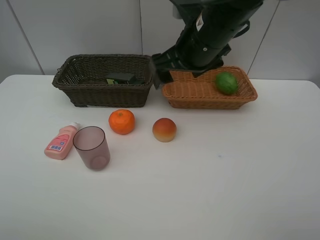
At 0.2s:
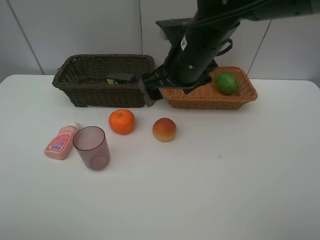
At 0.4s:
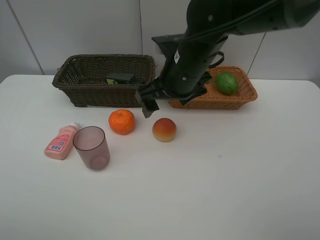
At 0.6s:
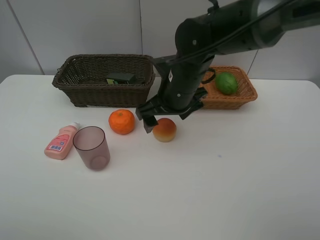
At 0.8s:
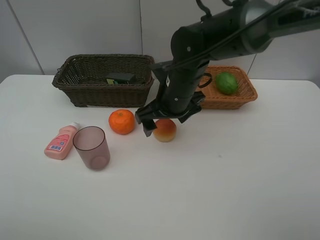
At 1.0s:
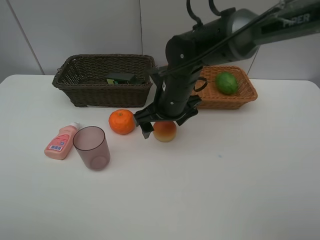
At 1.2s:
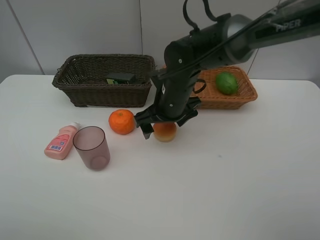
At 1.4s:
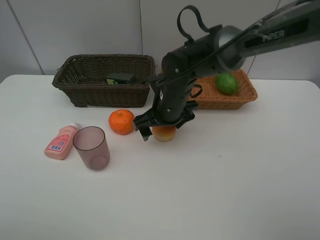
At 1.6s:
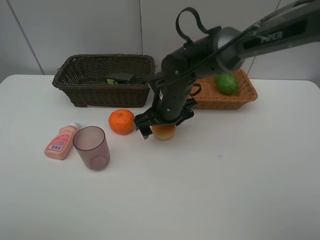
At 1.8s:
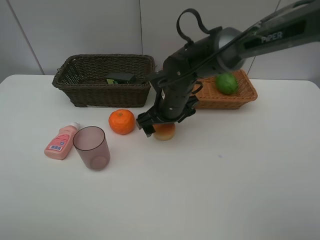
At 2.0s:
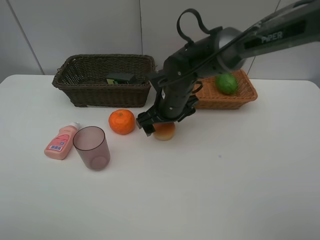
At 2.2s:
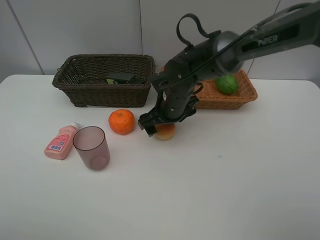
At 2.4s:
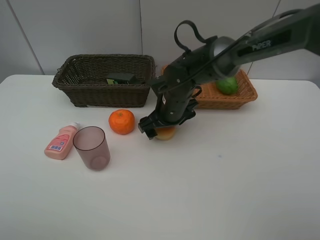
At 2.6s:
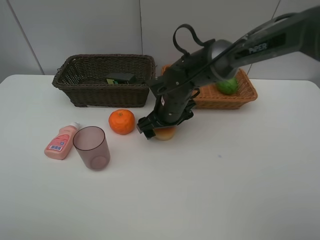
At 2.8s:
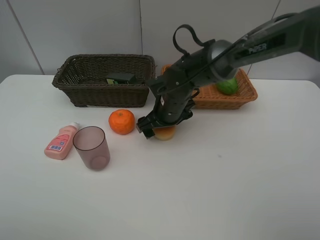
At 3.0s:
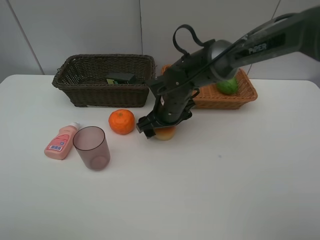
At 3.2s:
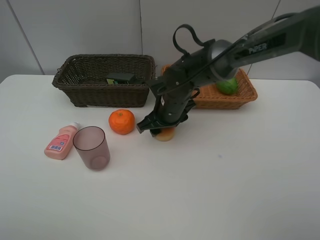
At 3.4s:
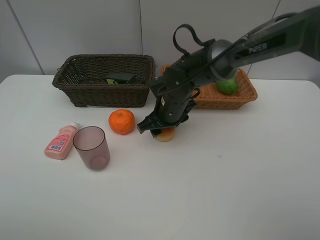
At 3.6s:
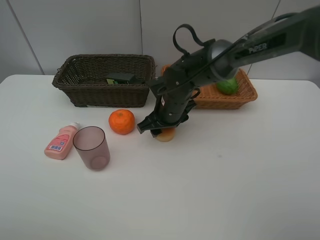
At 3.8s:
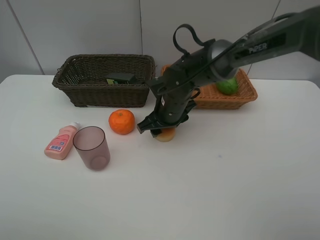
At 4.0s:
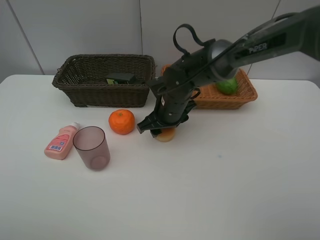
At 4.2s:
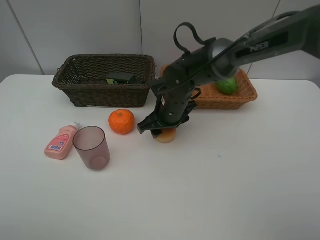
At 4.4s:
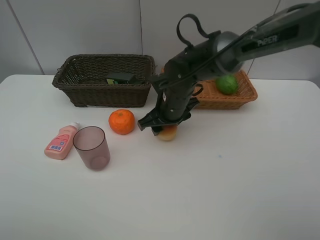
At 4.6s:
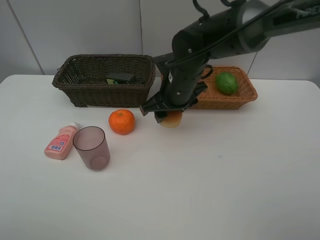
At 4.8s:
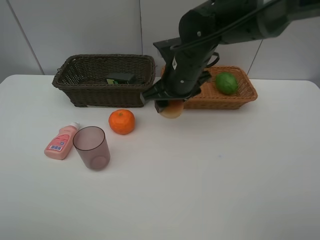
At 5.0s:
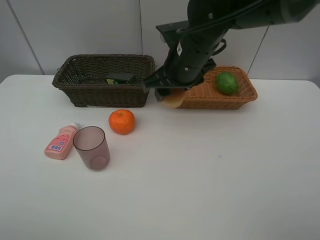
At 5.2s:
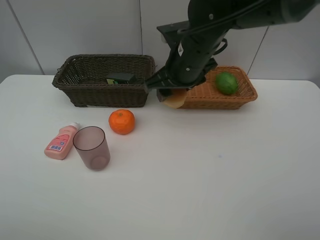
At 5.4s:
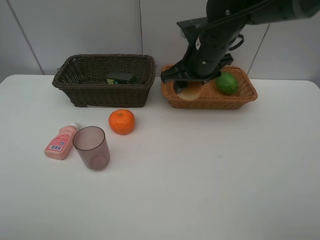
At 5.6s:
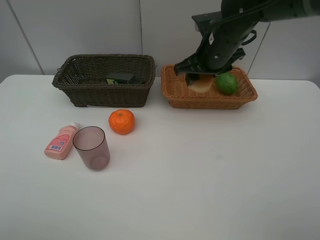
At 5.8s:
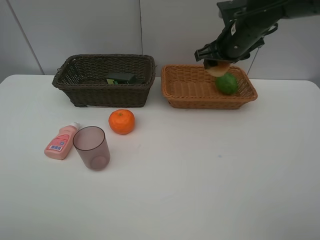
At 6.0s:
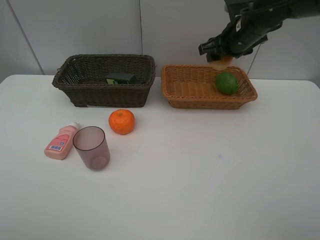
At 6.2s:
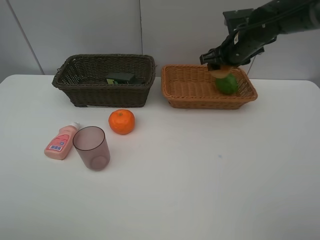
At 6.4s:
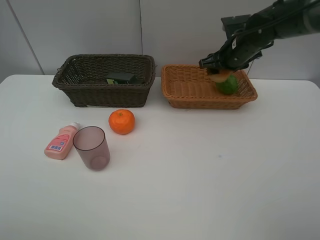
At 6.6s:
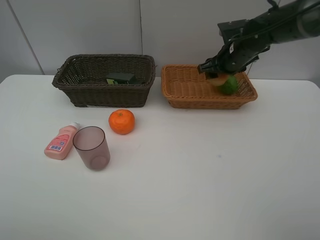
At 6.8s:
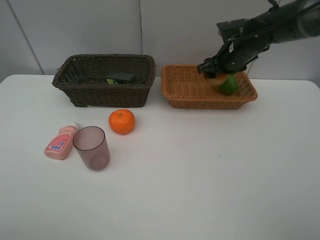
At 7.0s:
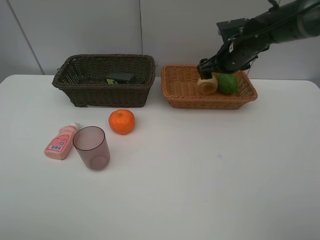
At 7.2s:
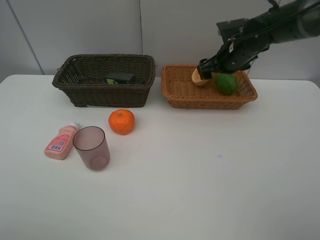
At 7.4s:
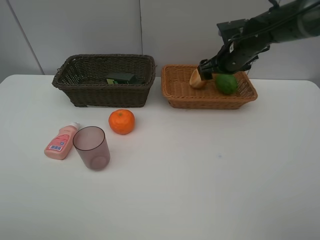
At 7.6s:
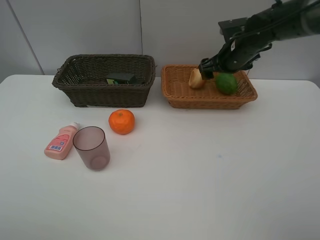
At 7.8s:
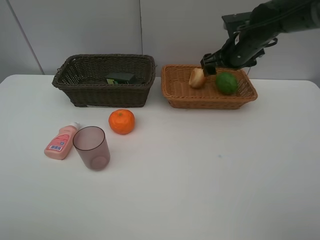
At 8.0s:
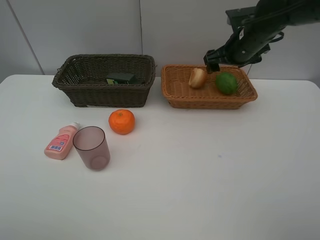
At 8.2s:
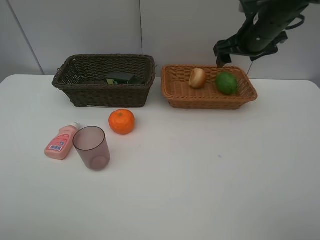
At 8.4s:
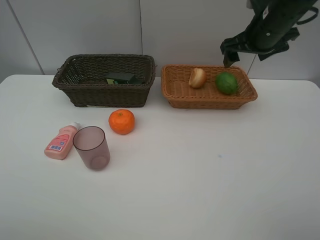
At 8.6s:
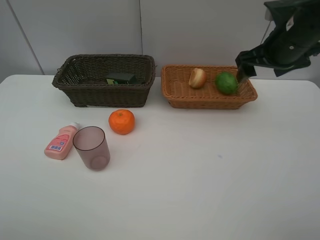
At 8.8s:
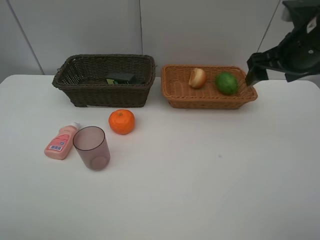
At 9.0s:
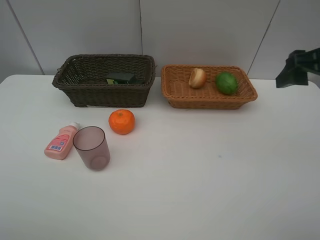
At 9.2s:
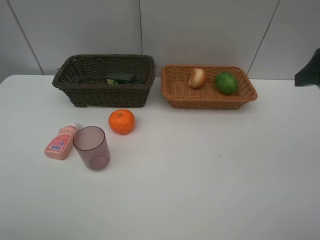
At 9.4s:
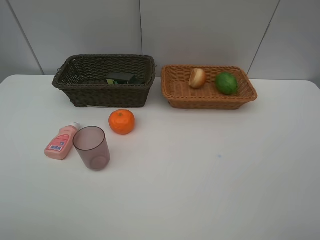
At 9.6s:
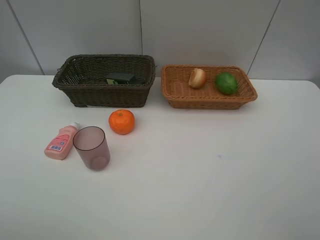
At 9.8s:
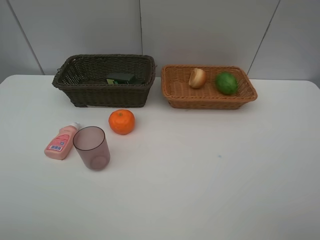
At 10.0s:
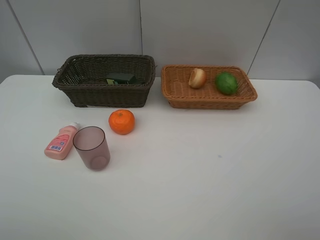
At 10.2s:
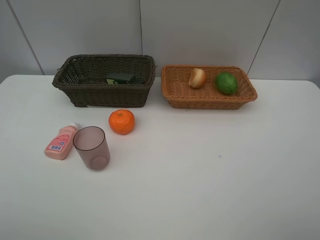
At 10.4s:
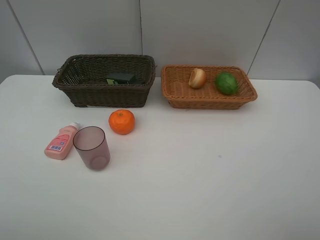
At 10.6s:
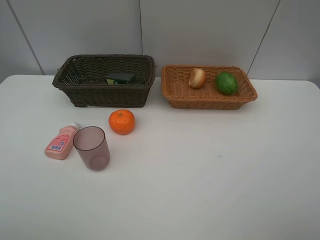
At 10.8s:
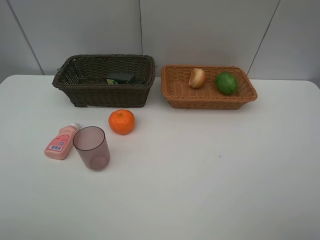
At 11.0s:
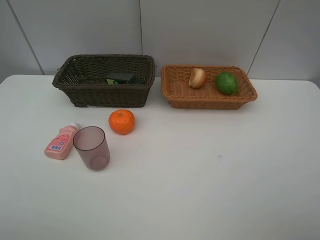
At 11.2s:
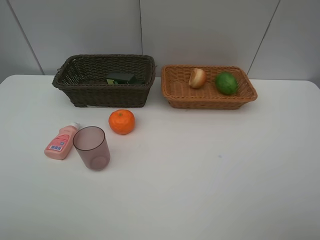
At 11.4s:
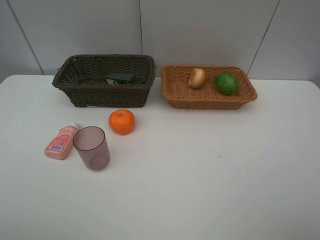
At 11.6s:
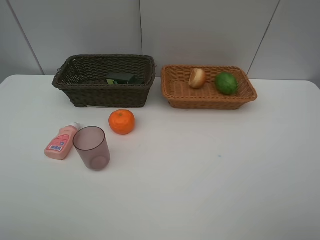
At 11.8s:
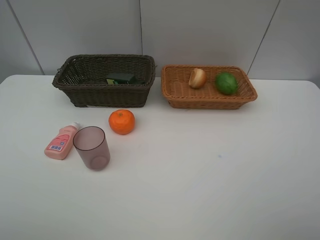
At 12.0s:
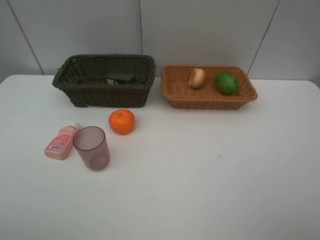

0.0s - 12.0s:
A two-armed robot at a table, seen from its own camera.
Task of the whole recording: place multiple objects separately in different baskets.
0.0s - 1.6s: The right gripper moves downward, approximately 15 cm.
1.6s - 3.0s: The grippers stay close to where they were, moving slightly.
3.0s - 4.4s: The right gripper closes up.
4.4s - 6.0s: The right gripper goes approximately 20 cm to the right, upward and forward.
6.0s - 7.6s: The right gripper opens.
7.6s - 9.0s: The right gripper is displaced backward, upward and to the right by roughly 25 cm.
9.0s - 10.4s: The right gripper is displaced backward by roughly 20 cm.

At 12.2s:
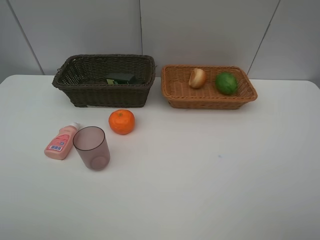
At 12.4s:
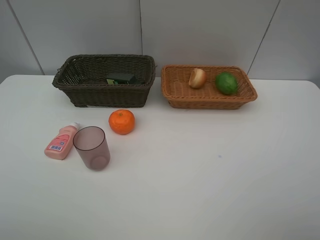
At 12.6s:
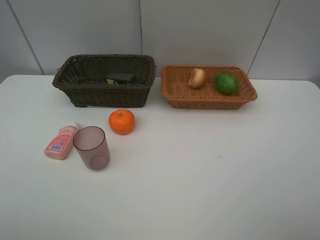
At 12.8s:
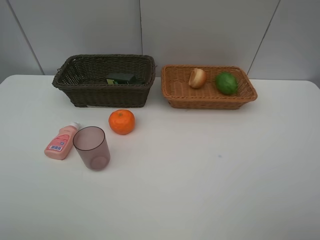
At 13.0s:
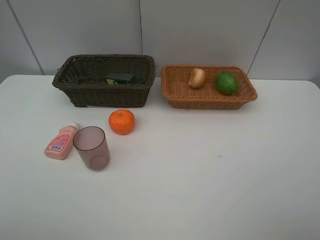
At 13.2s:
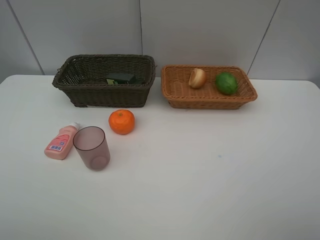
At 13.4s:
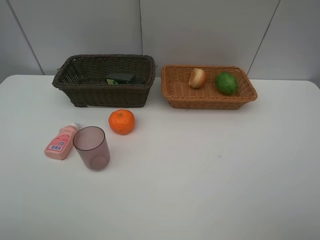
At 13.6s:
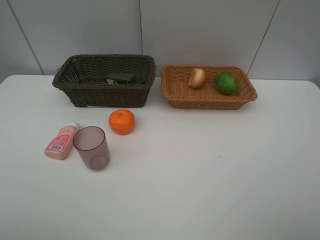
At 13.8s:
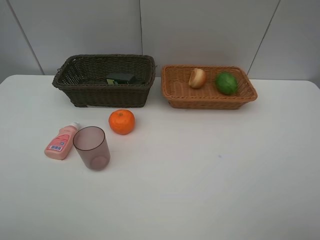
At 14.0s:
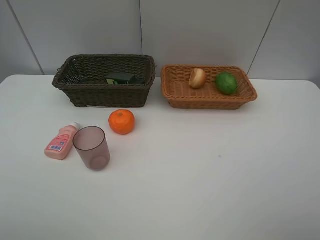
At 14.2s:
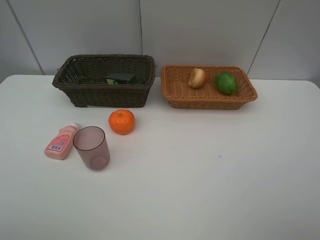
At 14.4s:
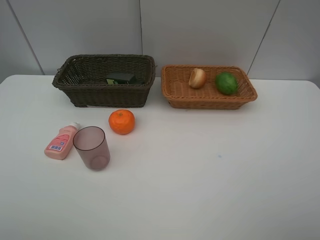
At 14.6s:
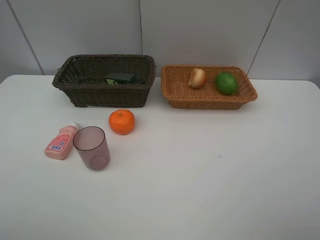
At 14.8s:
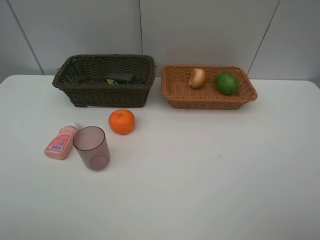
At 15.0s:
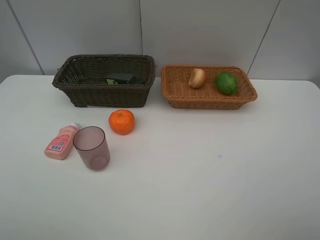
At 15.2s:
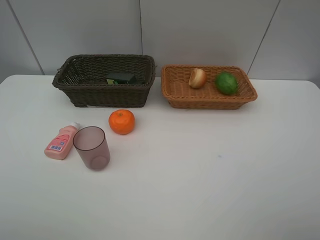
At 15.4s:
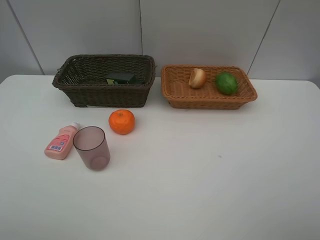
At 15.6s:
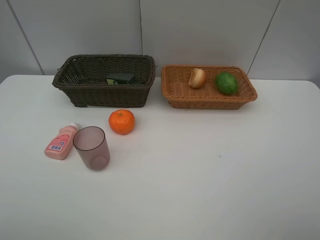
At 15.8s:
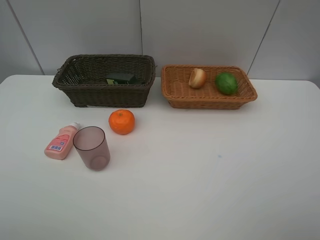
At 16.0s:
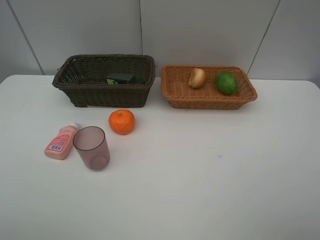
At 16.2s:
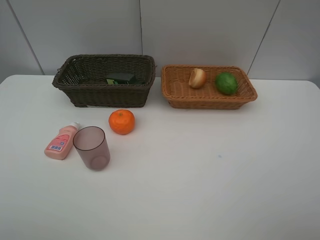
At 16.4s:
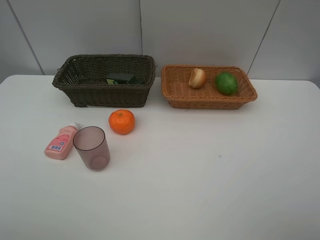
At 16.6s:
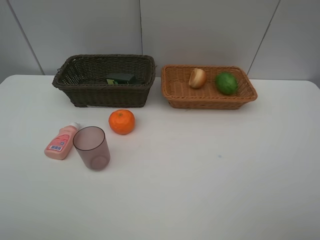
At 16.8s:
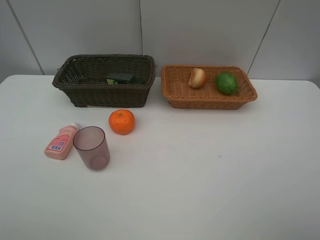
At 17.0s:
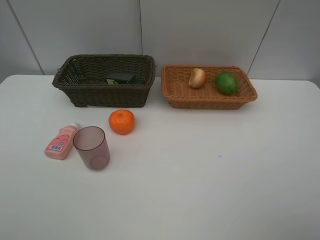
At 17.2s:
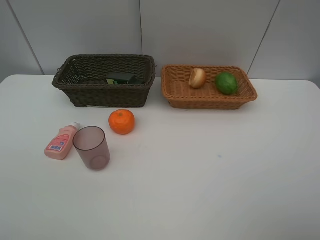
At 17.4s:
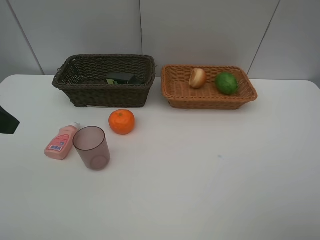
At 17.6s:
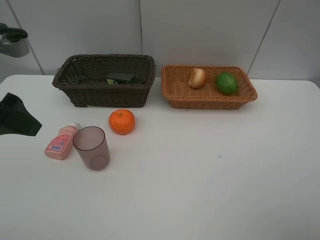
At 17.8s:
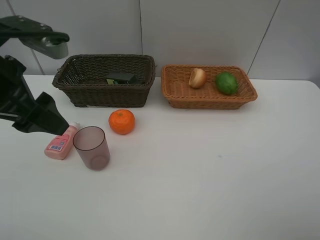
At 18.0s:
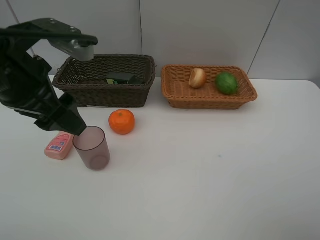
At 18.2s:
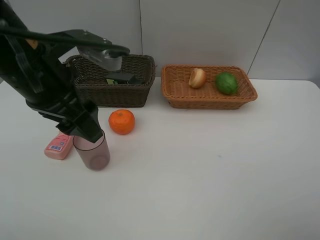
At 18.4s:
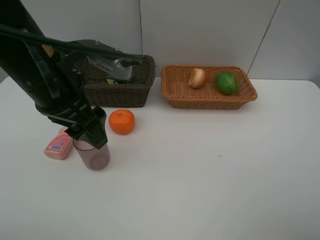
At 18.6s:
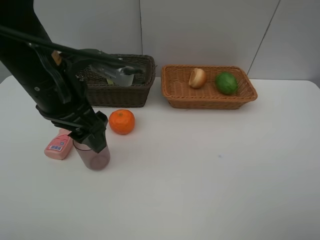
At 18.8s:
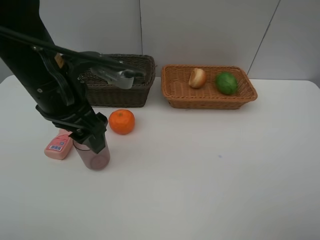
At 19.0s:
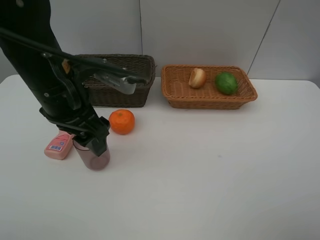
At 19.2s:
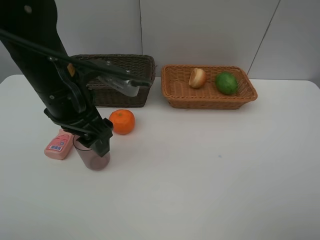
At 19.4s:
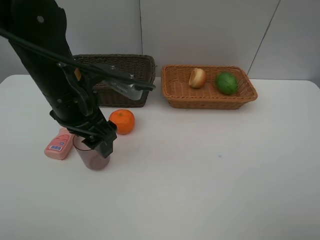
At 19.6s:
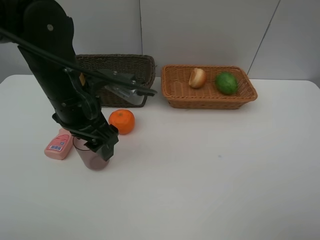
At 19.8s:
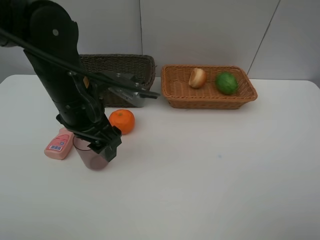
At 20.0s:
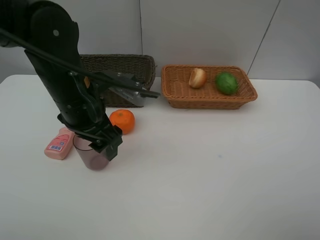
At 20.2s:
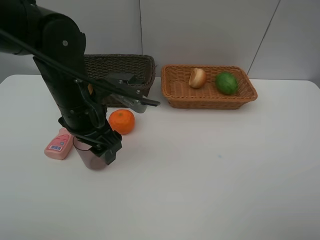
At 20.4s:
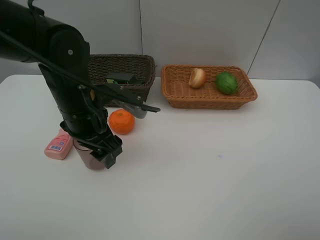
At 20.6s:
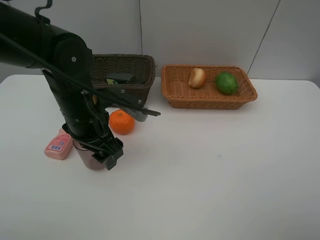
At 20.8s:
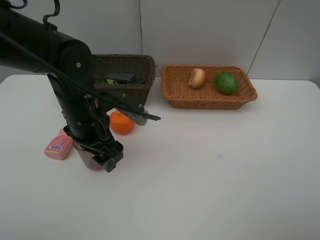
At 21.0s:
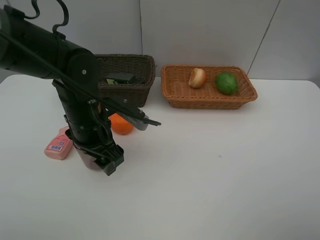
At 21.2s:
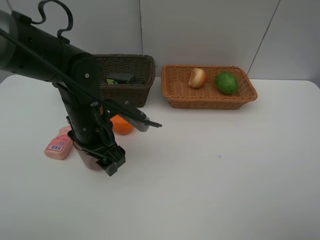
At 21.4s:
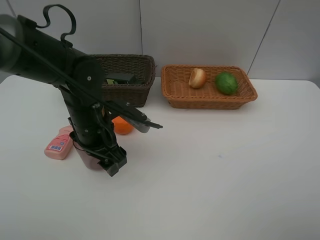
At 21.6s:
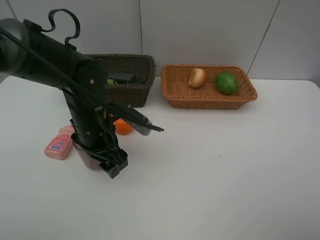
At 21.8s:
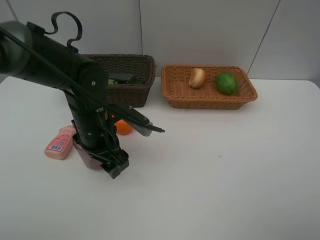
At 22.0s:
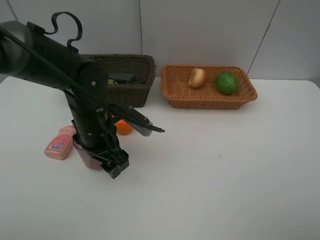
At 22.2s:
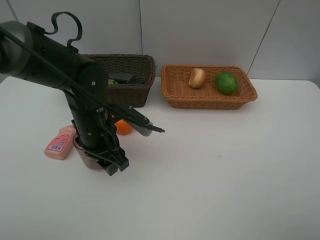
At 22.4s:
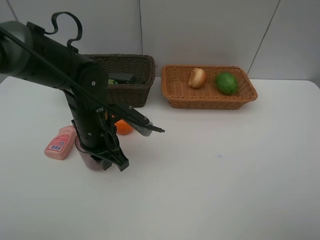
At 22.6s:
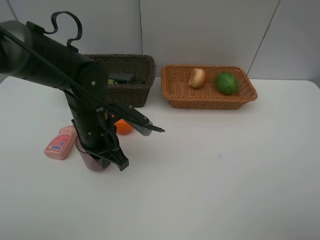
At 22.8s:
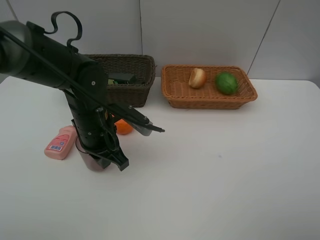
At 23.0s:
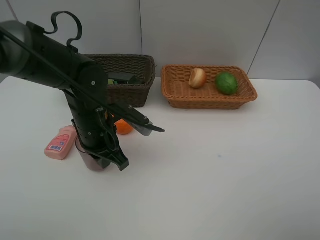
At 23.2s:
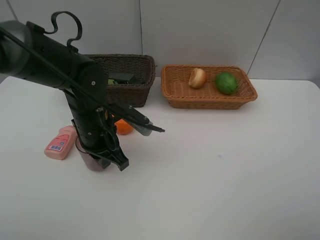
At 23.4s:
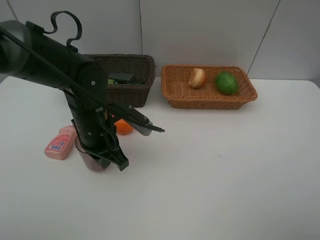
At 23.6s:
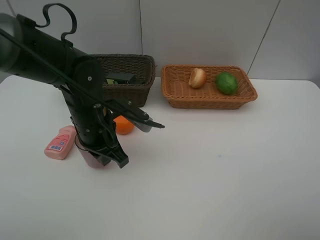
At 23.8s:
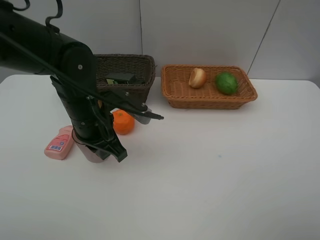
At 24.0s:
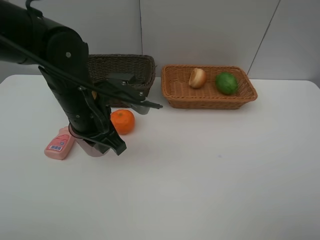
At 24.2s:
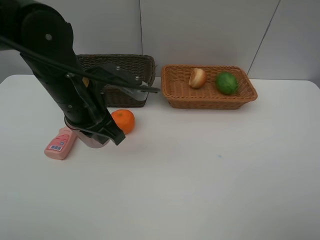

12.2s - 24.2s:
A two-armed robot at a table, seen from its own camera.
Task of the whole recording: place multiple objects separately in different baskets.
12.2s - 15.2s: The two grippers keep their place.
16.6s - 18.2s: The left gripper shifts about 25 cm forward and to the right.
18.2s - 19.8s: The left gripper shifts roughly 5 cm downward.
19.8s - 21.2s: The left gripper travels downward by about 5 cm.
21.2s - 22.6s: The left gripper closes.
22.6s - 24.2s: The left gripper goes approximately 10 cm upward.
